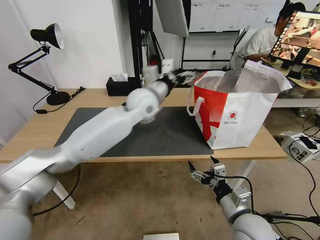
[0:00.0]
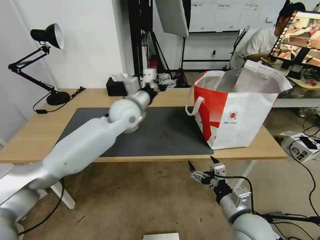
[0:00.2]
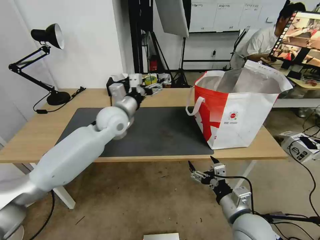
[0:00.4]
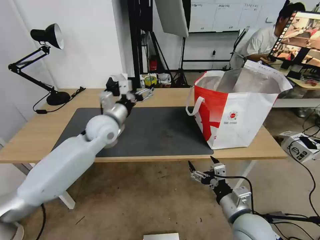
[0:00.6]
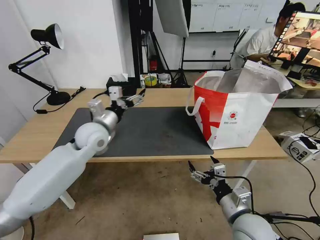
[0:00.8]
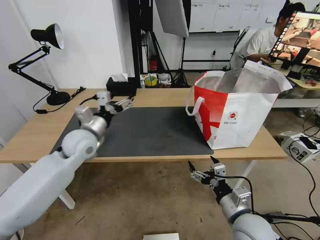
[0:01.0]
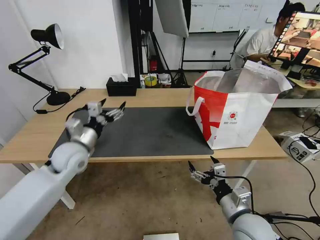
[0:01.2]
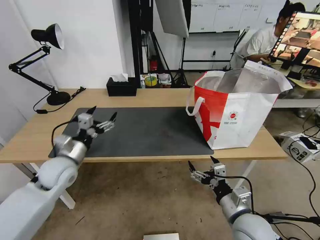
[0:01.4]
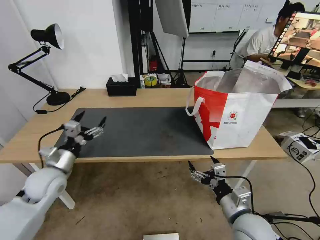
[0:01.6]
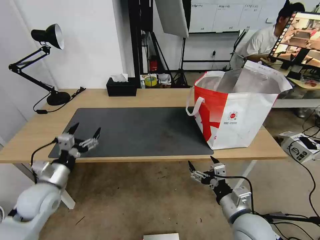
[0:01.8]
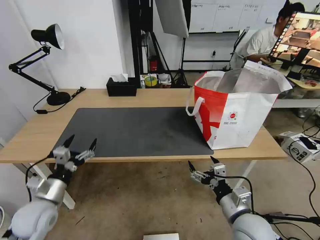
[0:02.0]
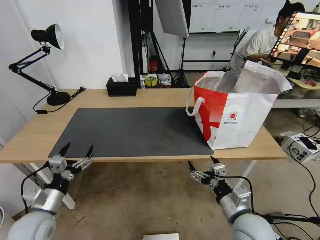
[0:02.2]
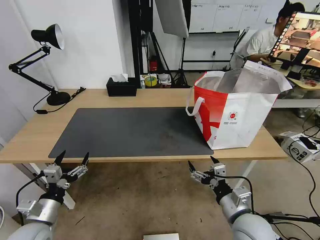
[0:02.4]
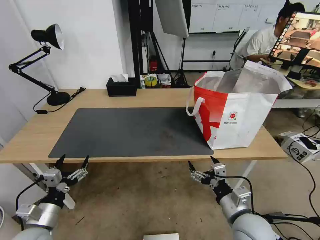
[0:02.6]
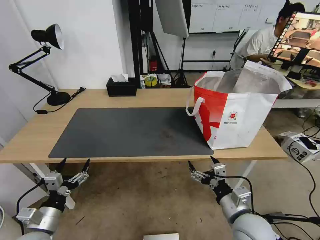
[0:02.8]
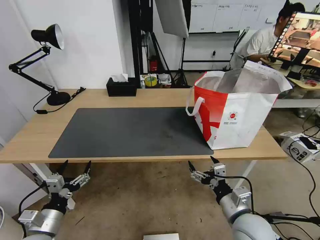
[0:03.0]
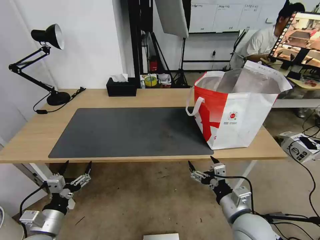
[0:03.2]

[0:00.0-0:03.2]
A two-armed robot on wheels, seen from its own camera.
Task of the whole recording: Pick up the trash from the table and place it into the takeout bag.
0:00.0 to 0:01.6: The left gripper is displaced to the left, backward and downward by approximately 35 cm.
0:01.6 to 0:03.2: The left gripper heads backward and downward, covering some 20 cm.
